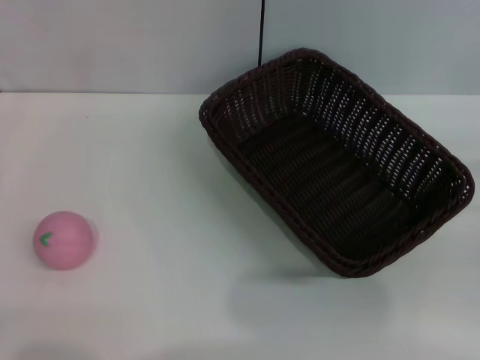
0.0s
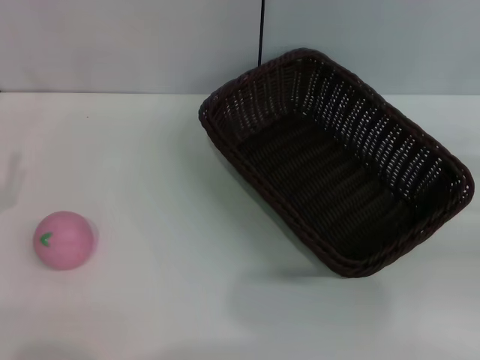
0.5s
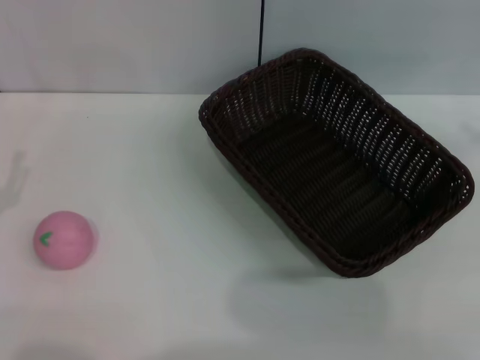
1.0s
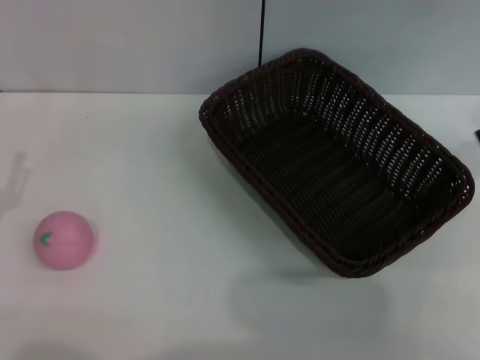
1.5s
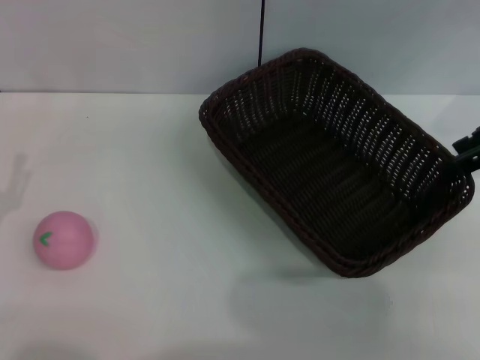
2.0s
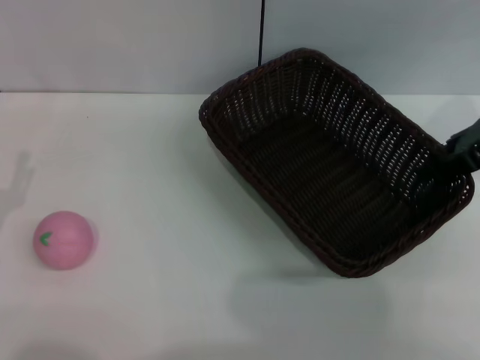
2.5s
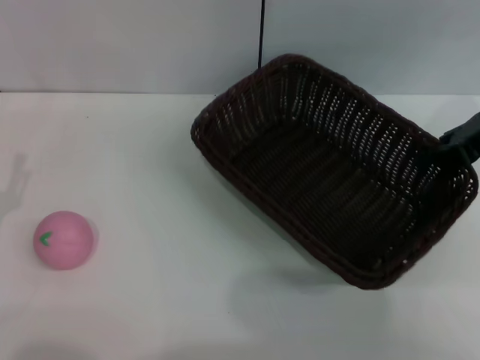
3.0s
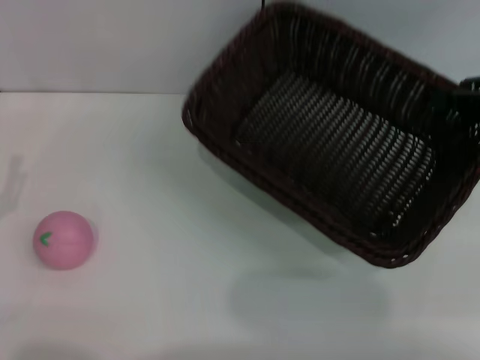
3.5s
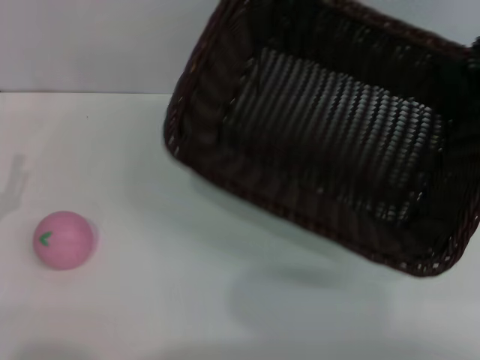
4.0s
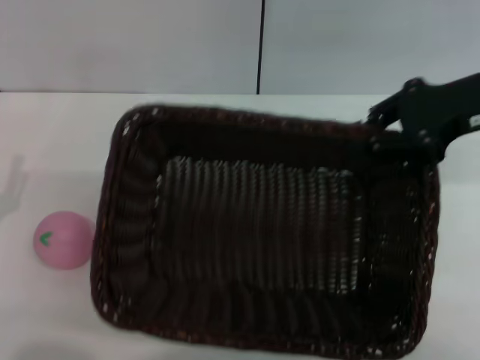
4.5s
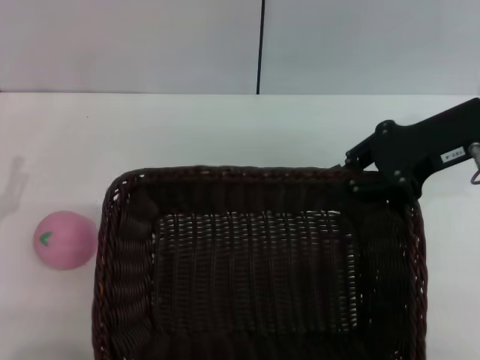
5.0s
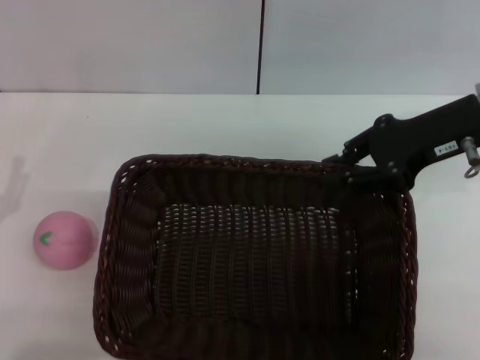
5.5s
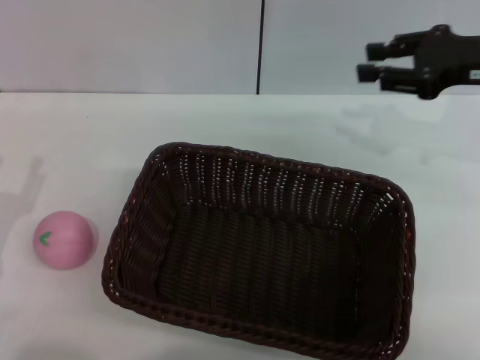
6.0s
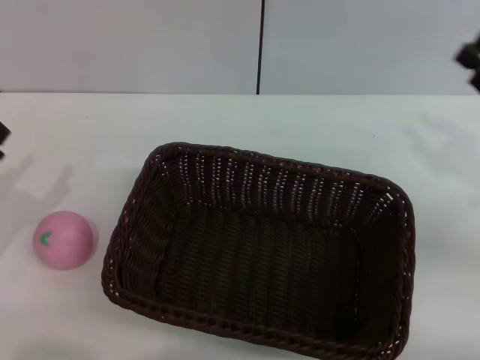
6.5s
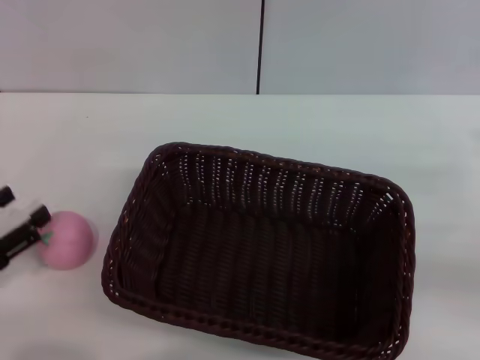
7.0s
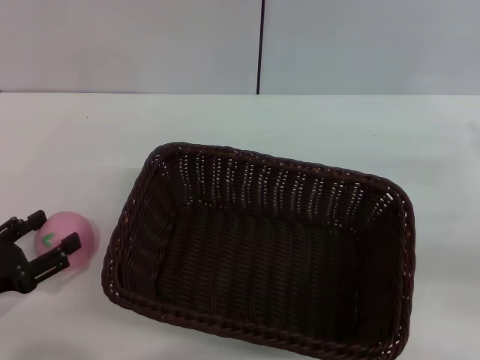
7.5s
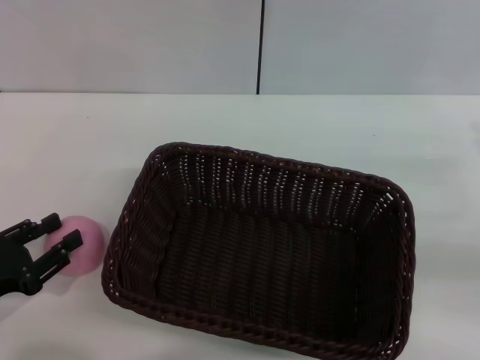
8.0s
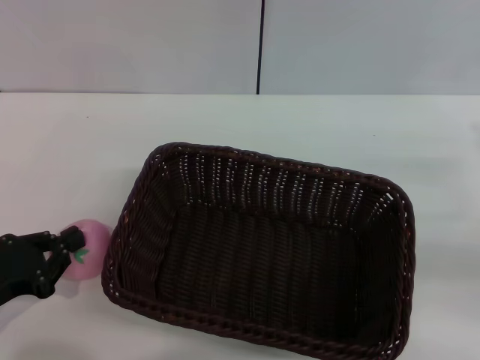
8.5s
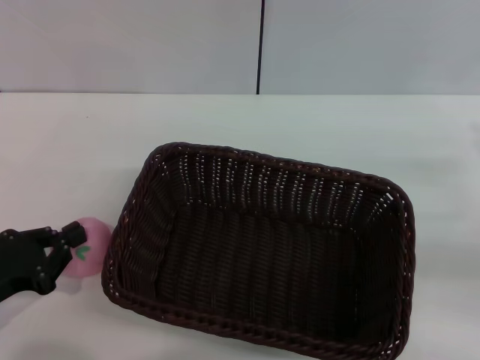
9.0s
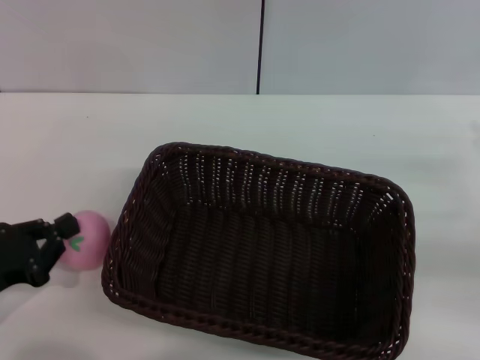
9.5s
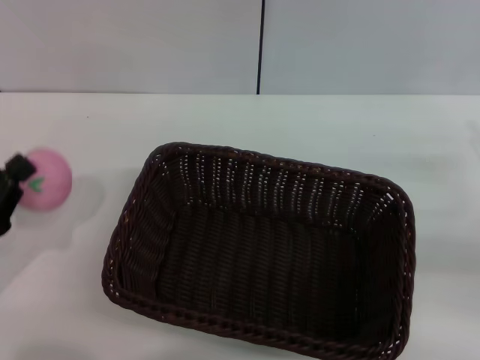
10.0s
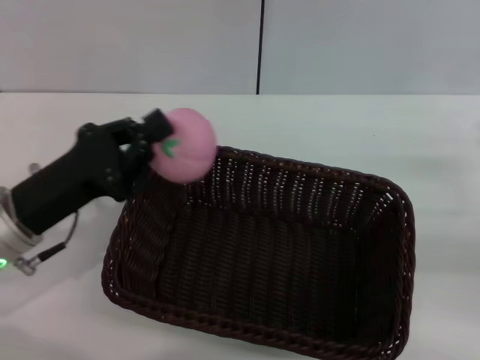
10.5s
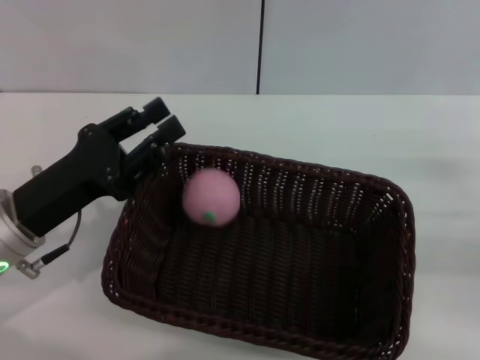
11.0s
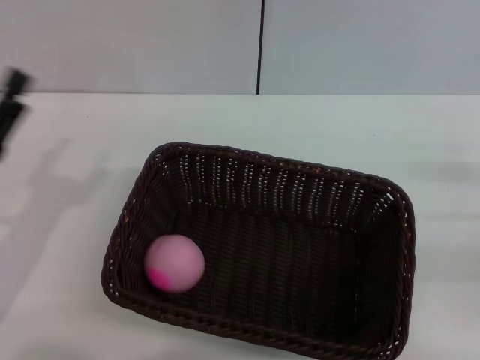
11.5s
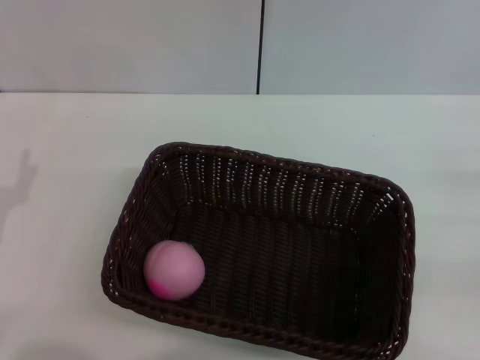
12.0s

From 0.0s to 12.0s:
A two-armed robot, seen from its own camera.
Step, from 0.0s to 3.0s: Pick up the dark basket with the right gripper.
Step, from 3.5s to 6.0s: Place the dark basket in the center of view with the right gripper.
Step, from 6.5s to 10.0s: Pick up the peach with the left gripper.
Step, from 10.5s to 11.5s: Place the peach into the basket with the left gripper.
From 0.0s to 2.0s: The right gripper moves upward, forward and to the left, approximately 20 cm.
From 2.0s to 4.0s: The right gripper closes up.
From 4.0s to 6.0s: The right gripper is displaced downward by approximately 5 cm, and opens its fingers.
From 6.0s to 8.0s: The right gripper is displaced backward, downward and to the right by about 20 cm.
From 8.0s to 10.0s: The left gripper closes up.
From 10.0s to 12.0s: The left gripper travels to the right and back again, some 10 cm each way, and opens.

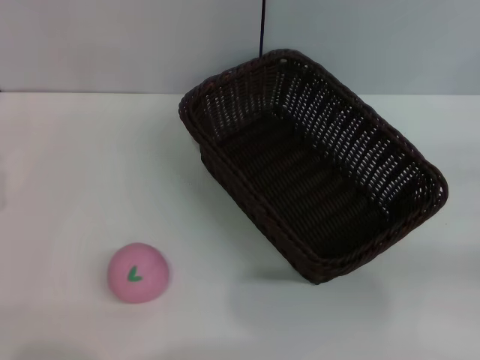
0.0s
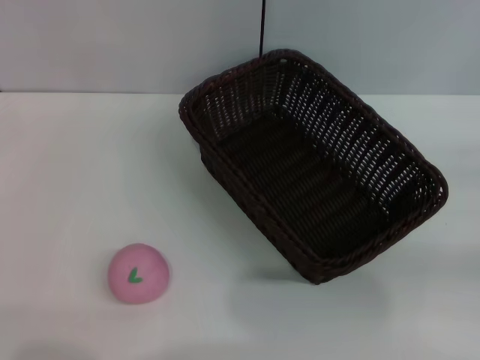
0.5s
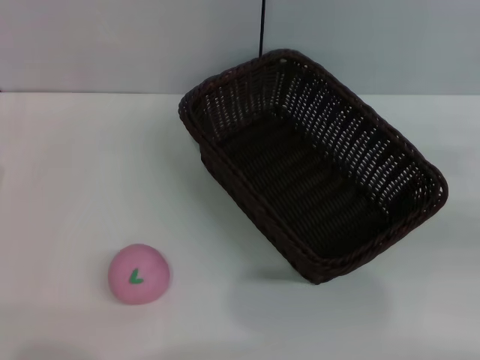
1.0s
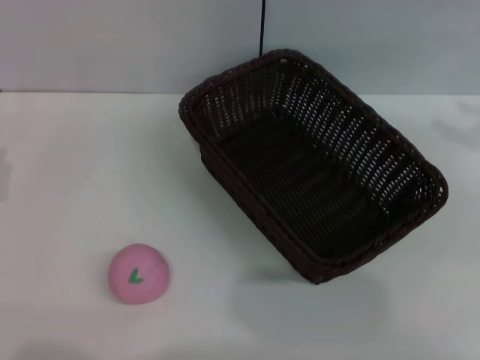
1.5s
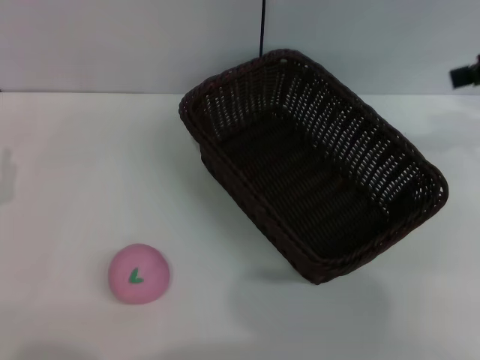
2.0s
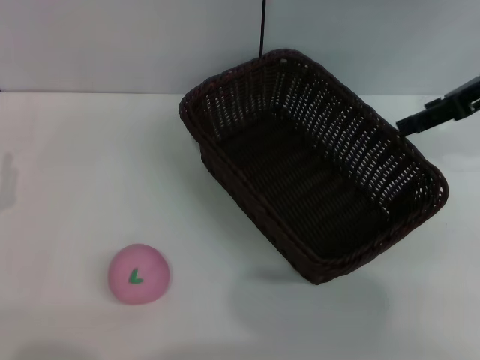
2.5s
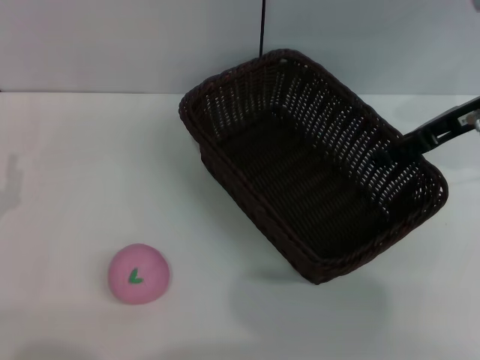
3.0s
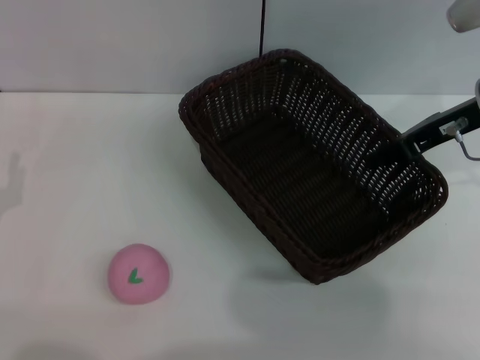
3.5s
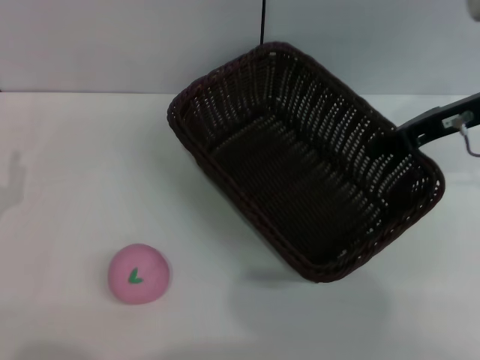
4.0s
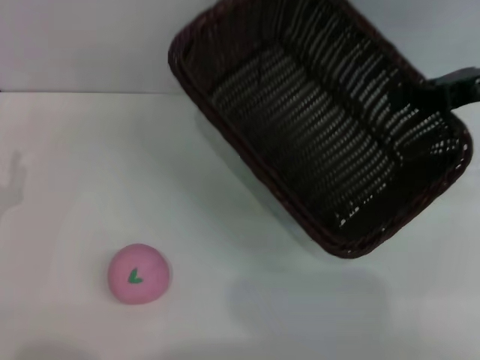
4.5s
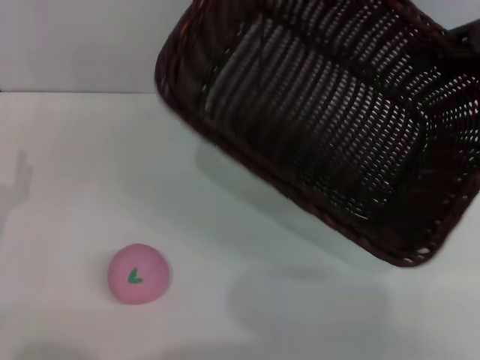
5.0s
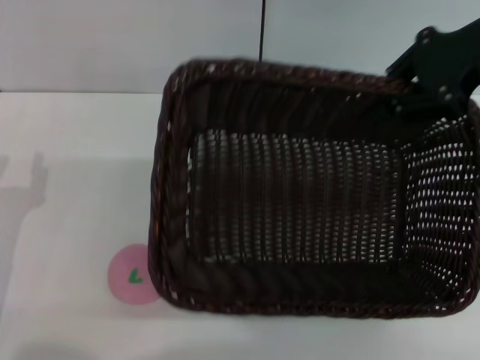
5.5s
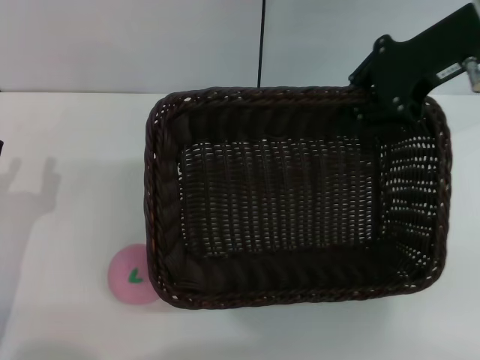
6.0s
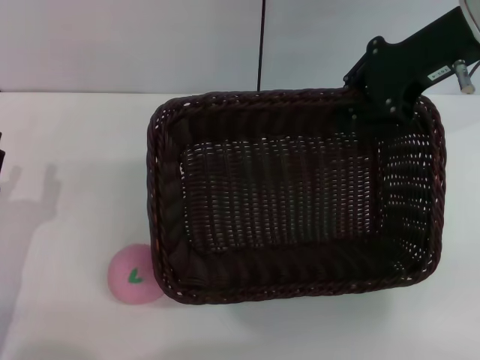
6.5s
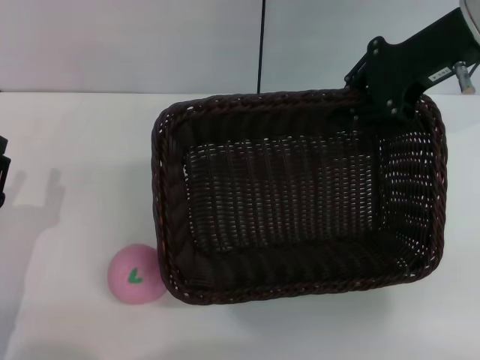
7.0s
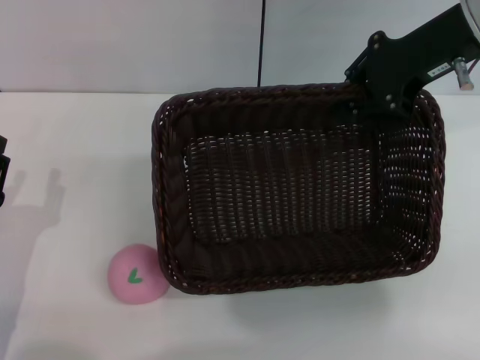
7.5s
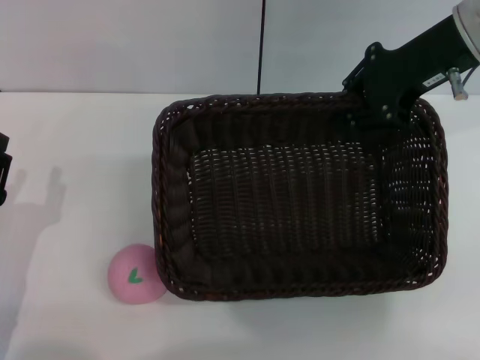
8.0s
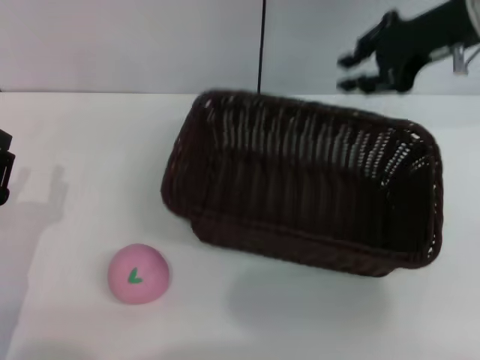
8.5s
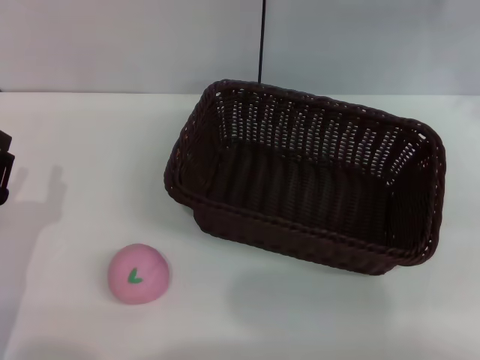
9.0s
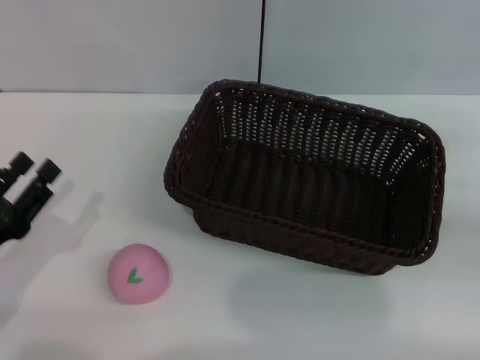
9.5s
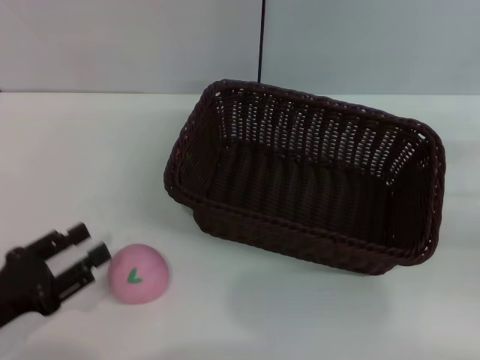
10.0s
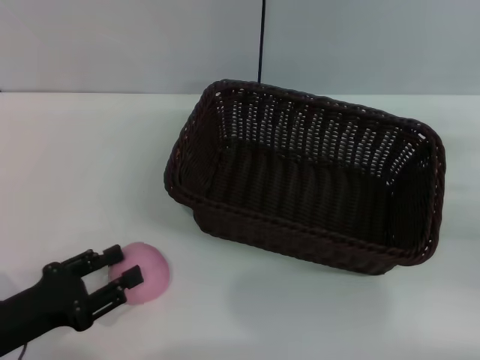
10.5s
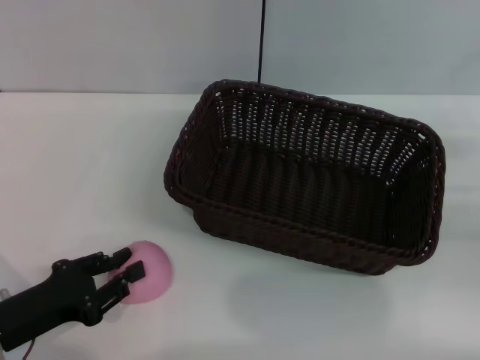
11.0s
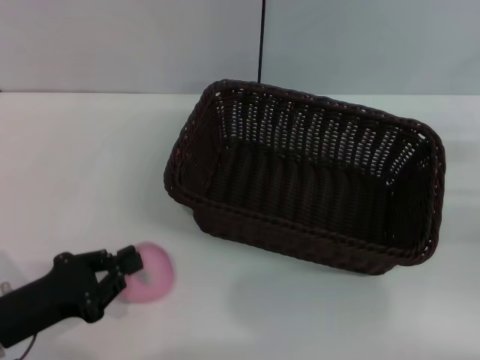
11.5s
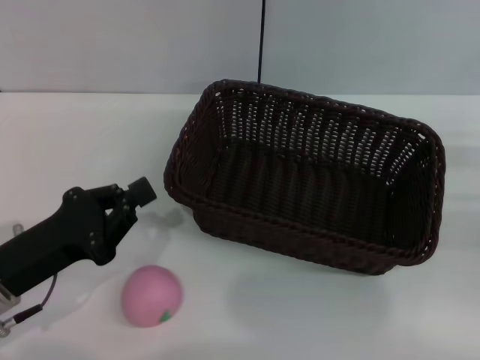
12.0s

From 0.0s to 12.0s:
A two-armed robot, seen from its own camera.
Step, from 0.0s to 4.0s: Pick up the dark basket with the right gripper.
Step, from 4.5s to 8.5s: Place the dark basket in the center of view with the right gripper.
From 0.0s to 2.0s: The left gripper closes, then reopens, while the right gripper is displaced upward and forward by roughly 25 cm, and opens.
From 2.0s to 4.0s: The right gripper heads downward and to the left, covering about 10 cm, and closes up.
From 4.0s to 6.0s: The right gripper travels upward by some 10 cm.
From 6.0s to 8.0s: The grippers move only a little.
From 8.0s to 10.0s: The right gripper moves to the right, downward and backward, approximately 25 cm.
From 10.0s to 12.0s: The left gripper moves to the right, approximately 5 cm, and closes up.

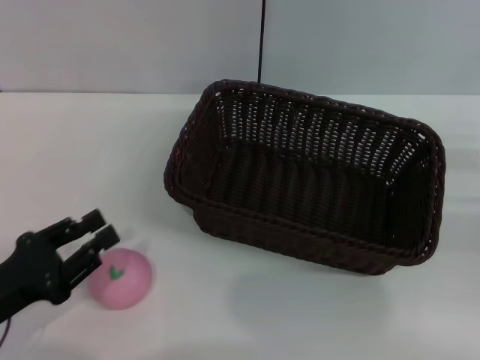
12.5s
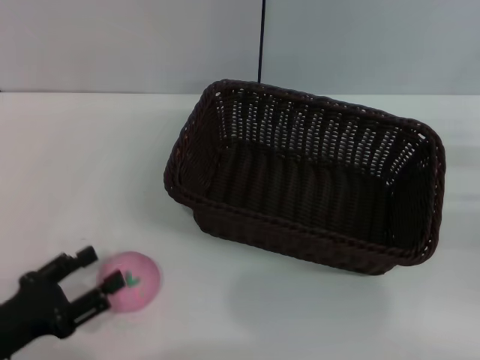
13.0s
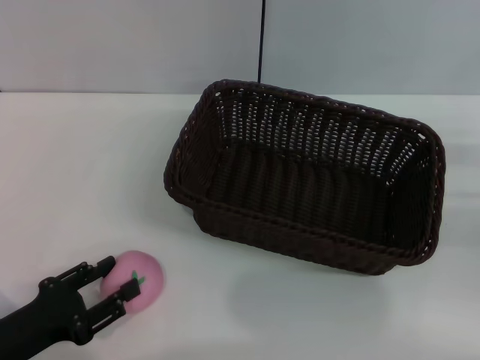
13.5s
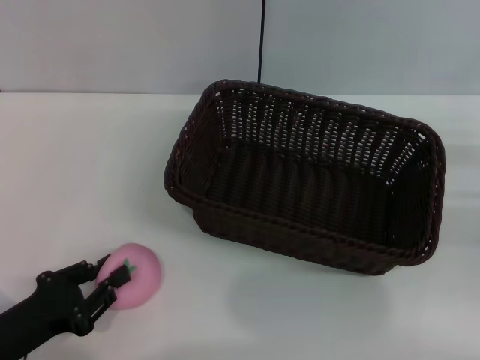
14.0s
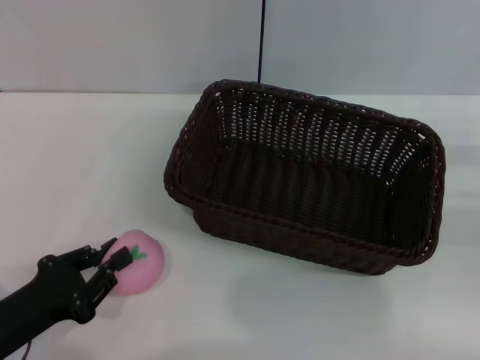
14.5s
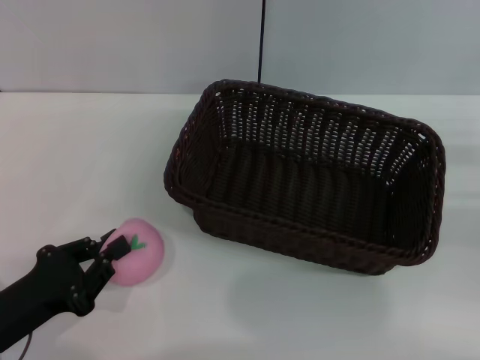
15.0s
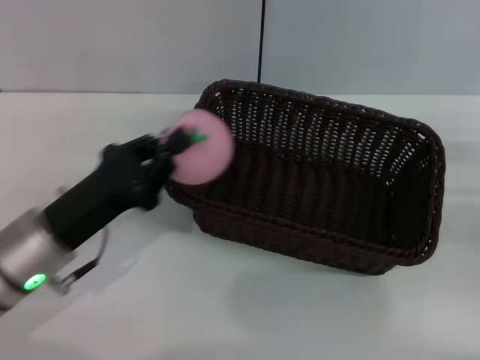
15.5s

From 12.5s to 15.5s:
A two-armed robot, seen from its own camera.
Step, from 12.5s to 15.0s: Pick up the peach with the left gripper.
From 12.5s to 14.0s: The left gripper opens, then closes again.
From 14.0s to 15.5s: The left gripper is displaced forward, to the right and upward by approximately 10 cm, and closes.
